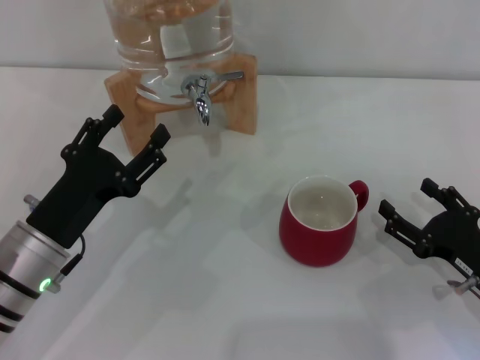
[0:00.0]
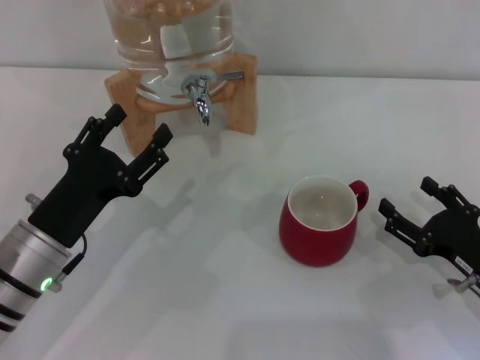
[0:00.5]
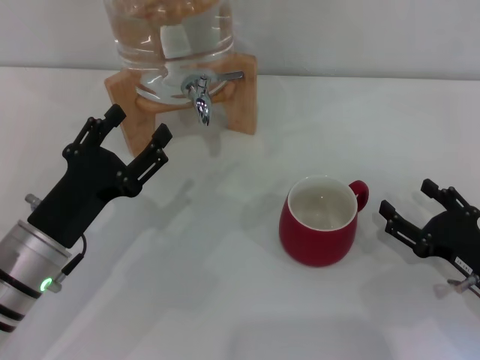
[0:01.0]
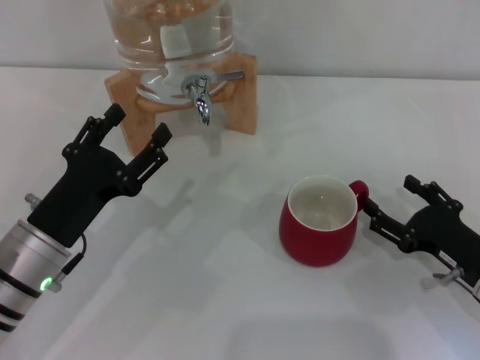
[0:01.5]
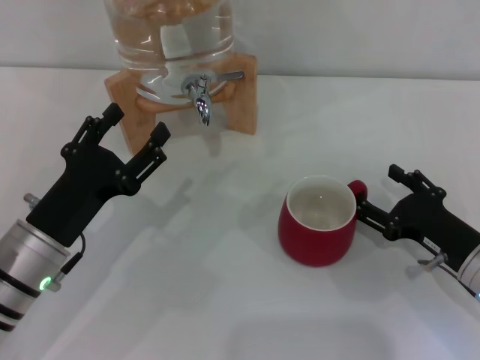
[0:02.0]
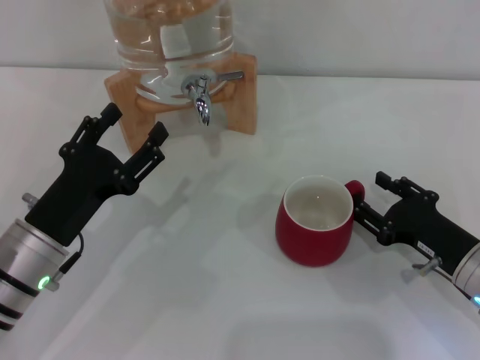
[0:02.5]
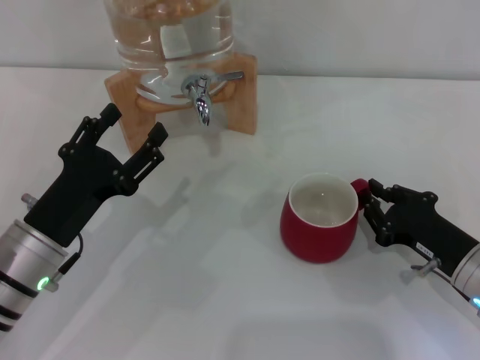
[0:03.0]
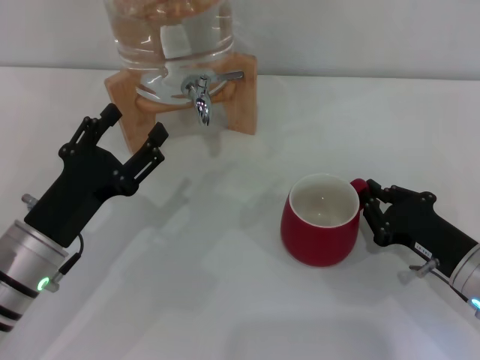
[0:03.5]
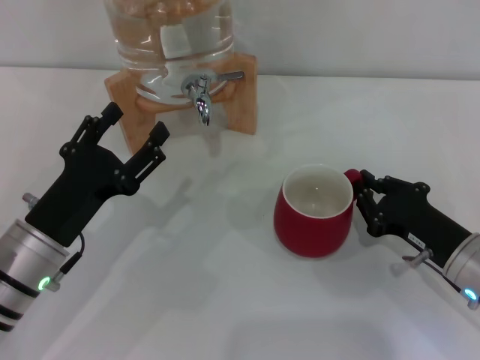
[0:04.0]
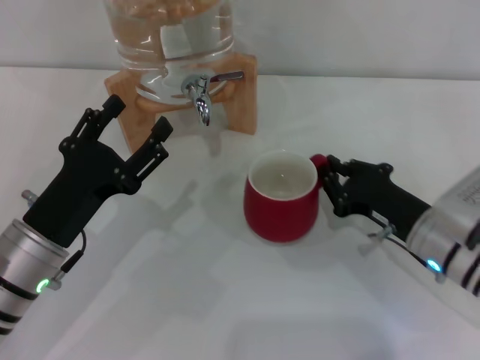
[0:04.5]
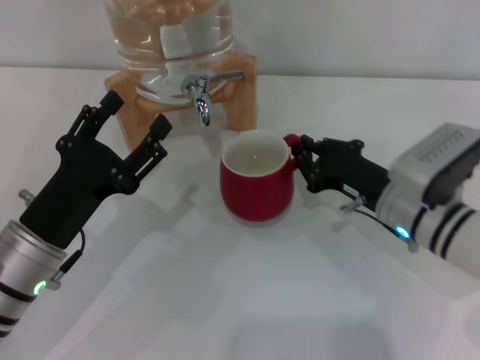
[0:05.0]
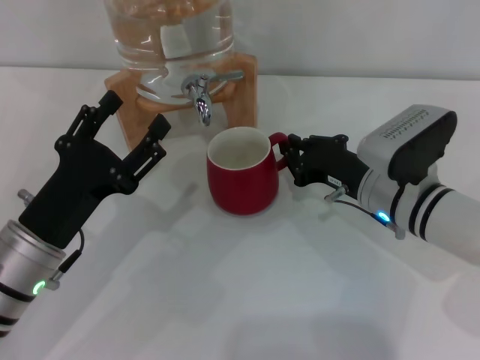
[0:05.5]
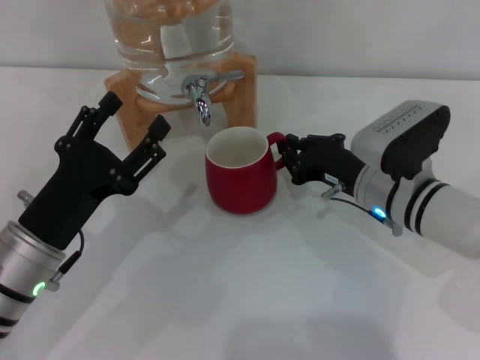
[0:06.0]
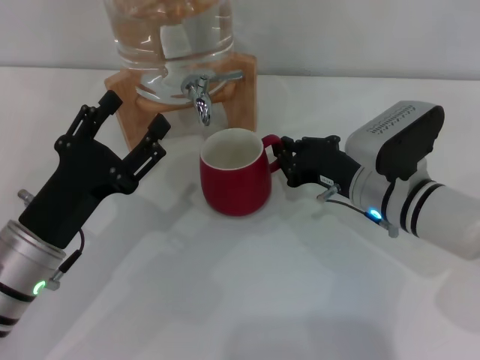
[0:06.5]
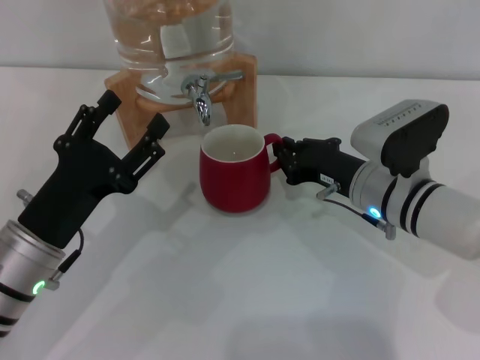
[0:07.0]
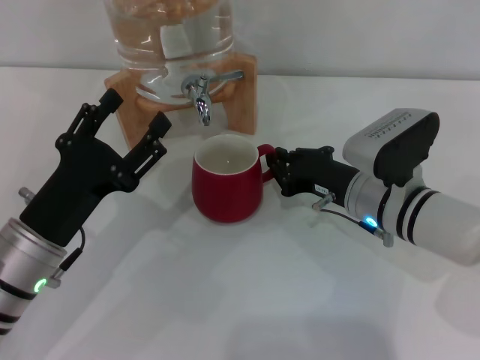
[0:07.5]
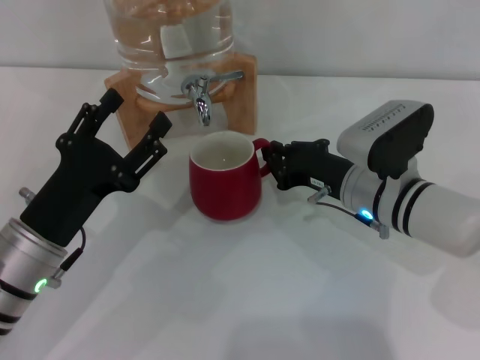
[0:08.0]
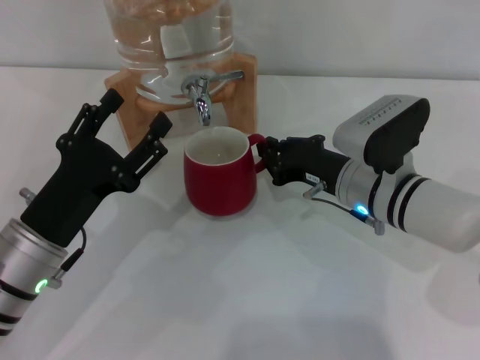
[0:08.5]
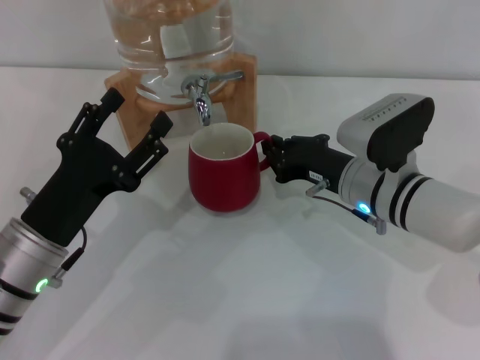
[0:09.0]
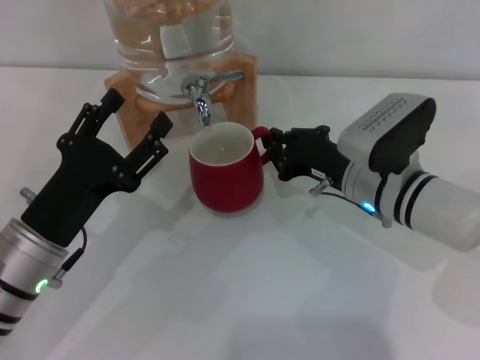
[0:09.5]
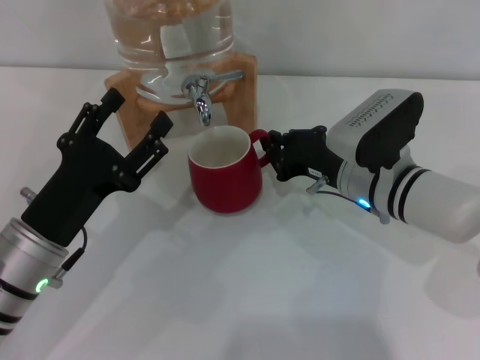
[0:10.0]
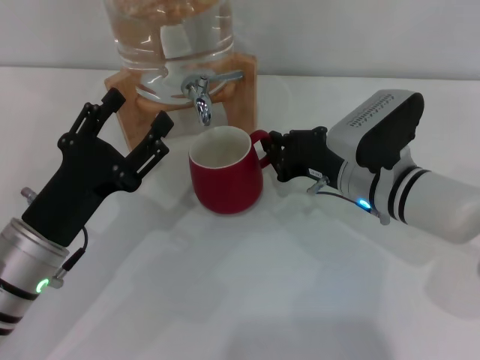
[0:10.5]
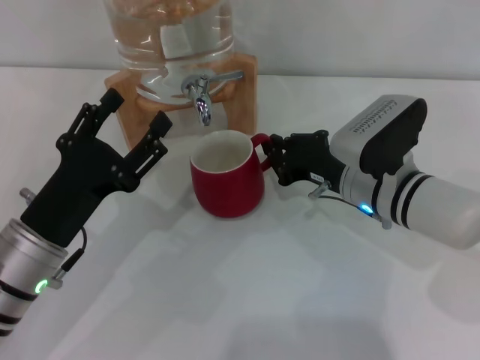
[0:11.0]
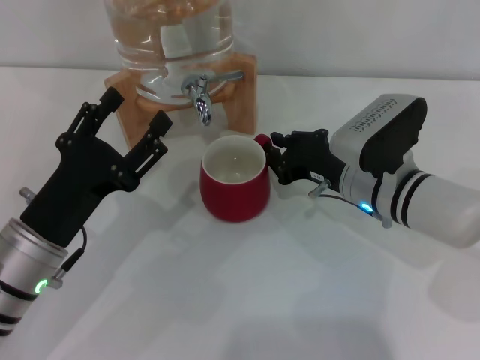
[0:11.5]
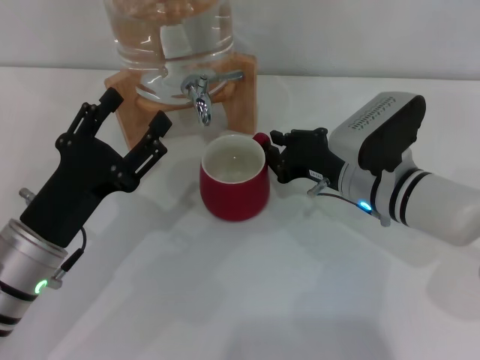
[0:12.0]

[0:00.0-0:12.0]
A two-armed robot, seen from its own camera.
Task of the whole recording: the right gripper pick up the red cup and place it horizontally under the faucet, the left gripper turn on the faucet to fill the cup, and then turn off the faucet.
0:00.0 to 0:02.0: There are only small adjustments of the grippers.
0:02.0 to 0:04.0: The right gripper closes.
0:04.0 to 0:06.0: The right gripper goes roughly 10 cm to the left and forward.
0:06.0 to 0:10.0: There are only small adjustments of the grippers.
0:10.0 to 0:12.0: The two grippers keep their place.

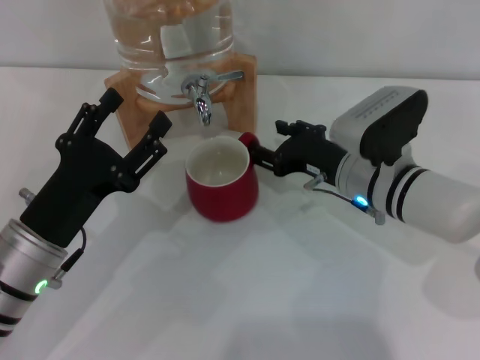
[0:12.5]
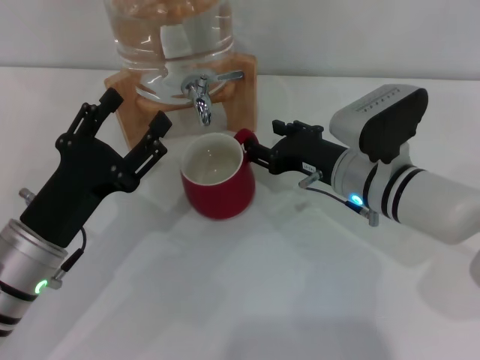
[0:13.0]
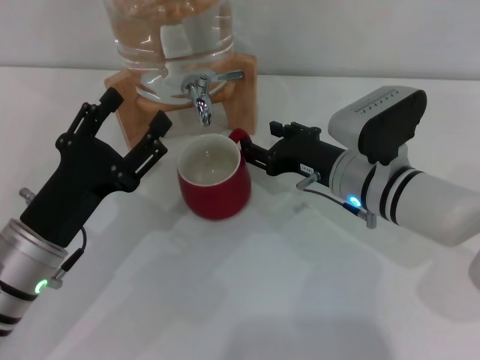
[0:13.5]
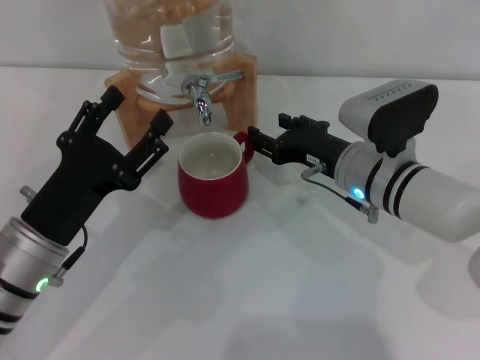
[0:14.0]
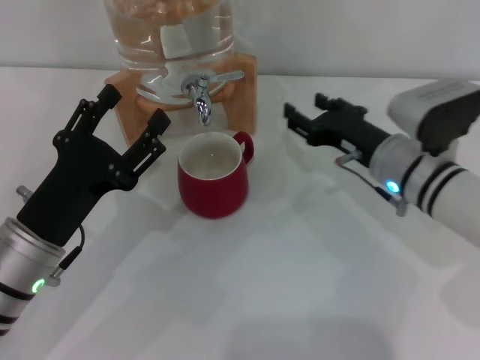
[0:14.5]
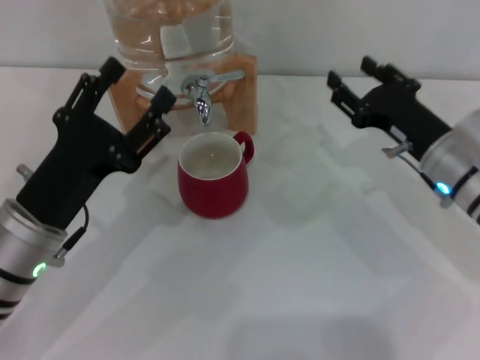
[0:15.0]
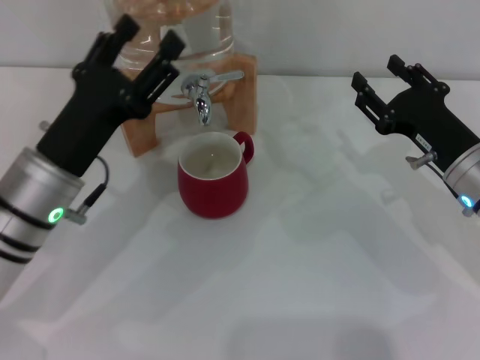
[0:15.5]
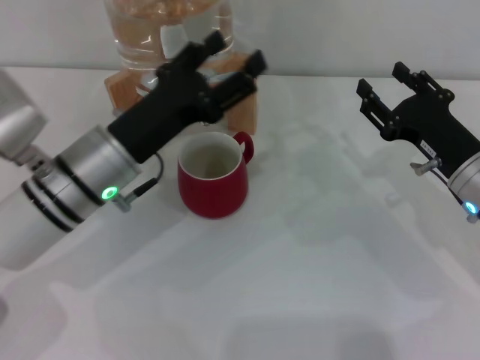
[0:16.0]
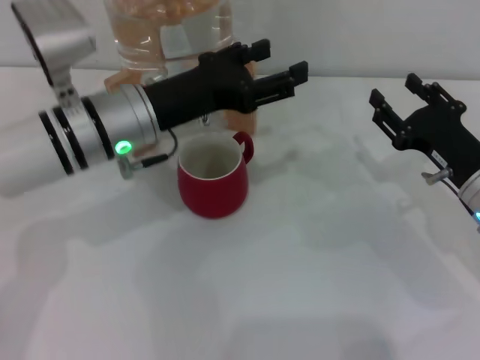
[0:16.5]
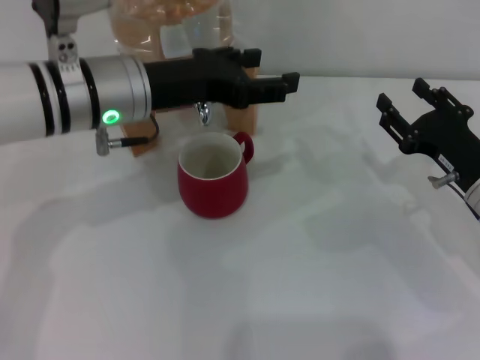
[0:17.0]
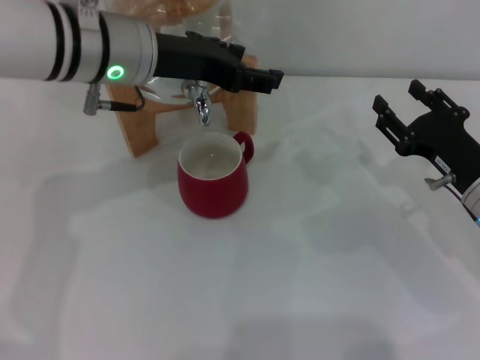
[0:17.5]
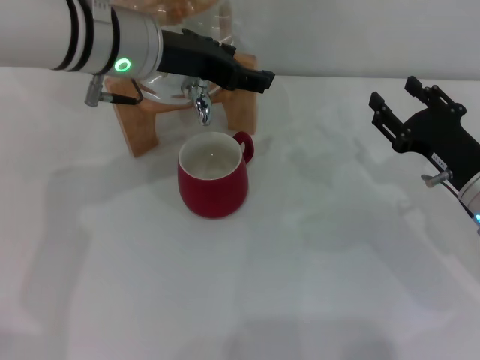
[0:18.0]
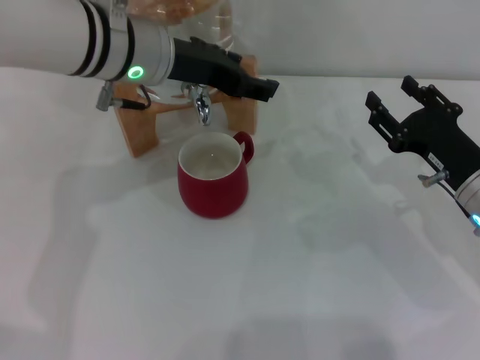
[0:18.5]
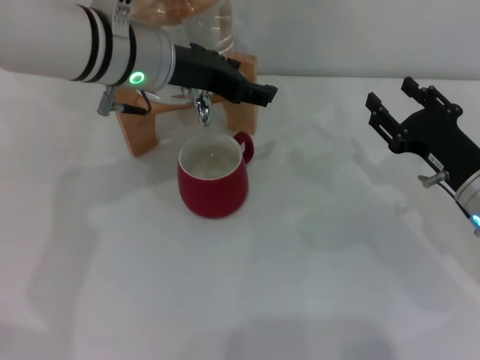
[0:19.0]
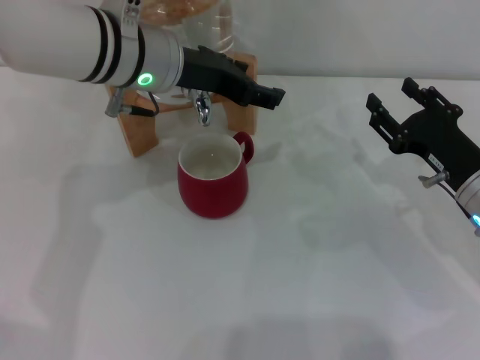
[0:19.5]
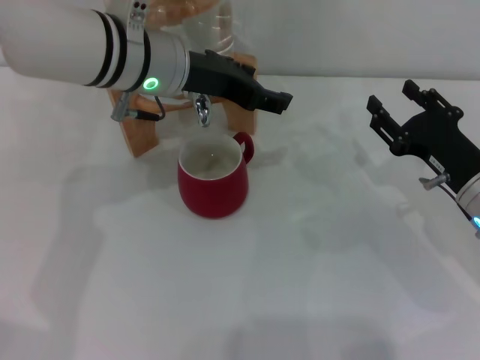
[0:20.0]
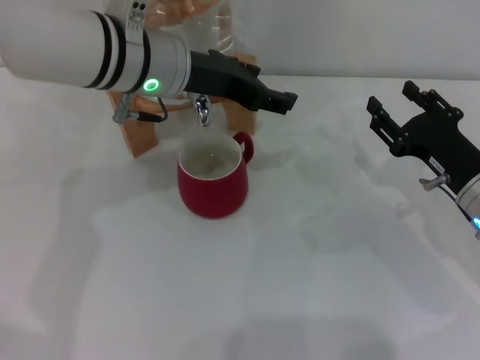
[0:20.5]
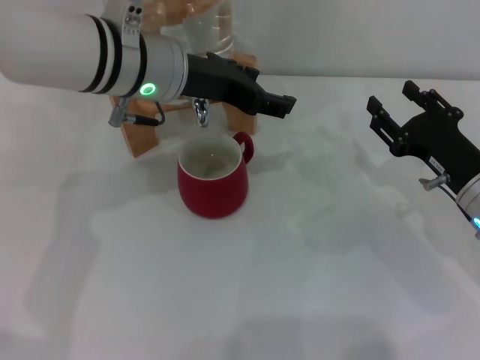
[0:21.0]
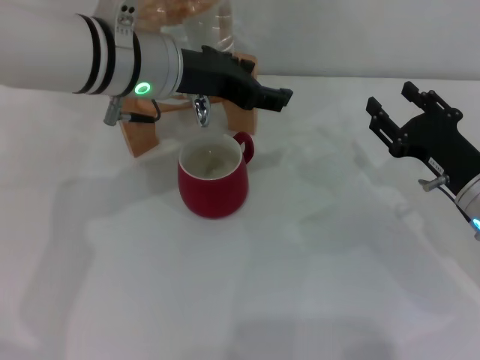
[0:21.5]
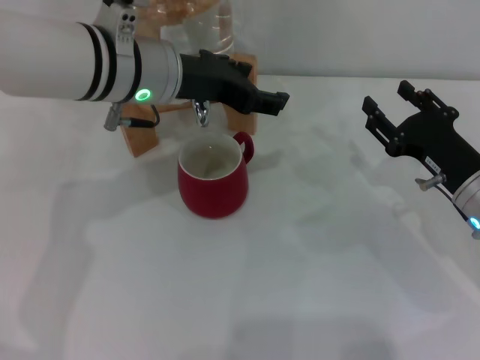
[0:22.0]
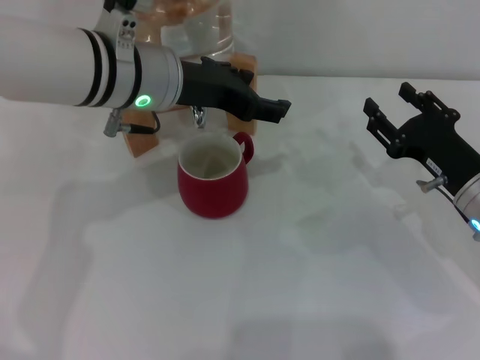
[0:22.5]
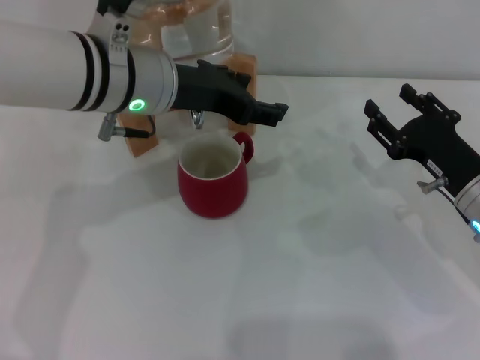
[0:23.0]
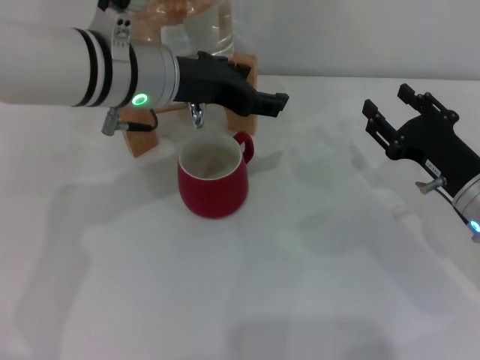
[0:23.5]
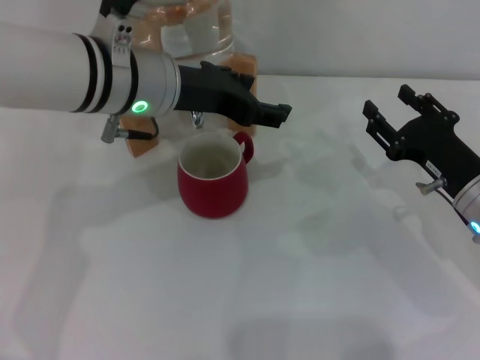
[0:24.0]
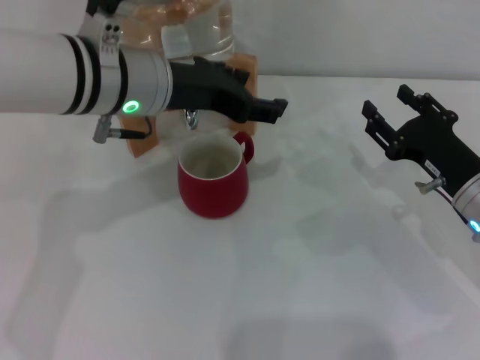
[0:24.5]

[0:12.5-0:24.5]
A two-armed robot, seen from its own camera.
Task of the whole recording: the right gripper pick up the red cup and place it horizontally under the faucet, the left gripper turn on the faucet to fill the cup, and then turn off the faucet.
0:12.5 to 0:14.5: The grippers make only small movements.
0:14.5 to 0:16.5: The left gripper goes roughly 15 cm forward, upward and to the right, while the right gripper goes about 10 cm to the right.
0:16.5 to 0:18.5: The left gripper goes some 5 cm upward.
0:18.5 to 0:24.5: The grippers move only a little.

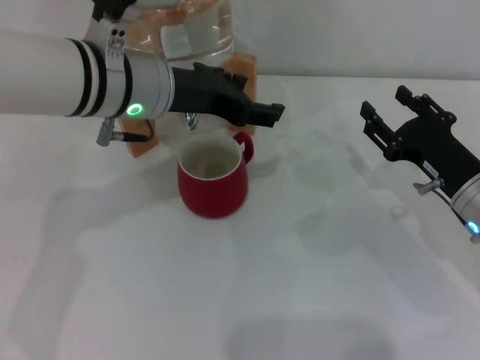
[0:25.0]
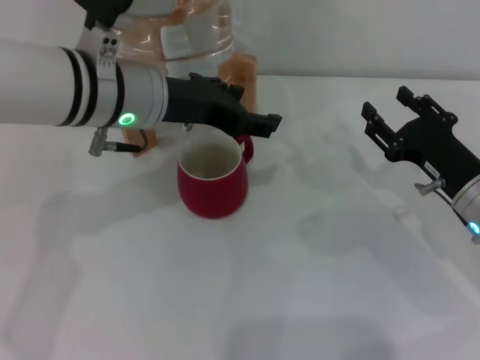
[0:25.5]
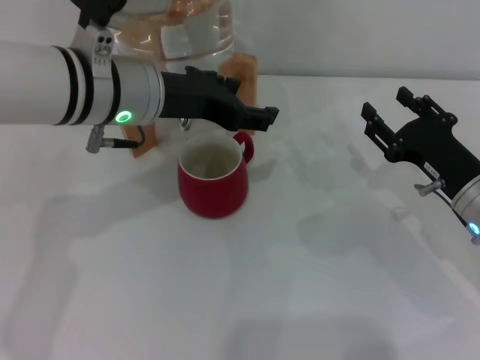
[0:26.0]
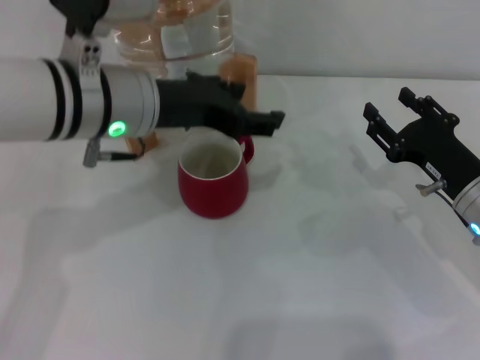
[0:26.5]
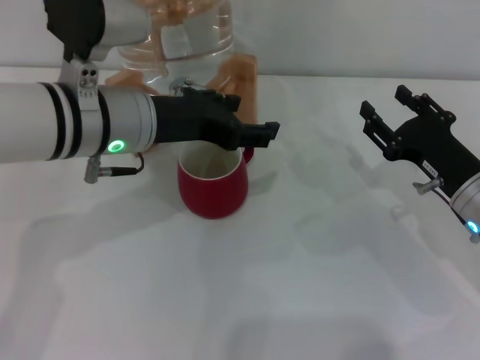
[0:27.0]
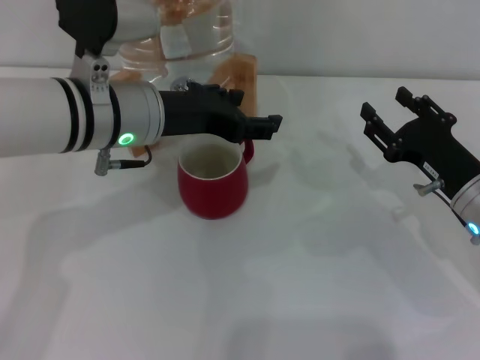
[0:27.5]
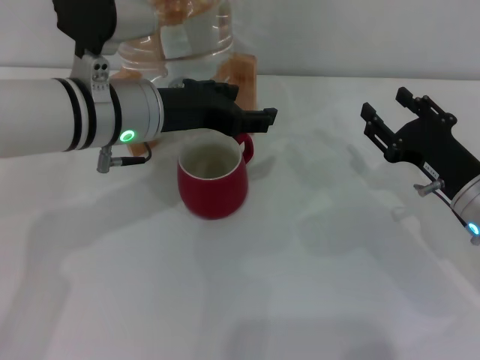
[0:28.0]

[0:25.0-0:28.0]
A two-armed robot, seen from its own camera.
Task of the whole recording: the right gripper pick up the red cup and place it horizontally under the faucet, the left gripper turn on the faucet to fill the cup, and then turn off the faucet.
0:25.0 to 0:28.0: The grippers move only a little.
